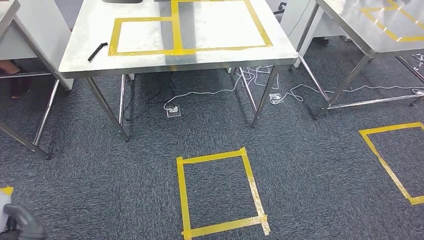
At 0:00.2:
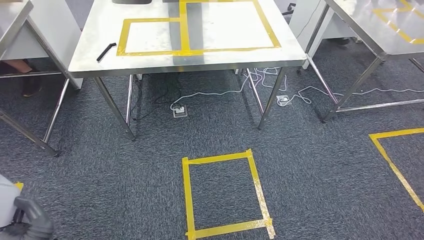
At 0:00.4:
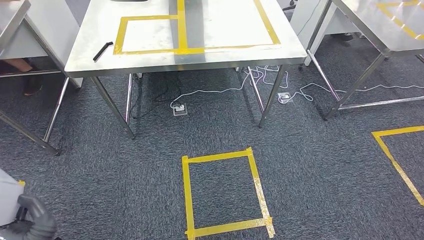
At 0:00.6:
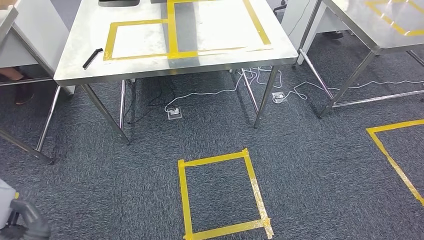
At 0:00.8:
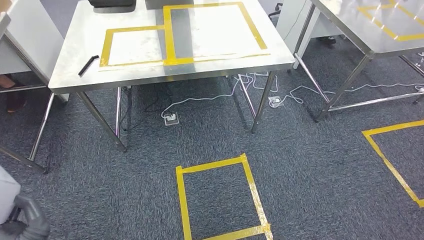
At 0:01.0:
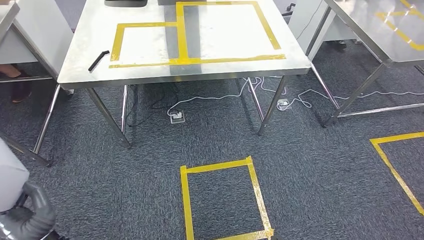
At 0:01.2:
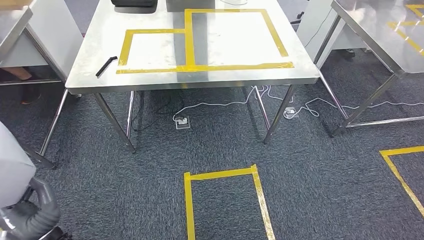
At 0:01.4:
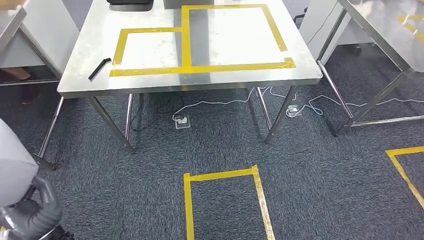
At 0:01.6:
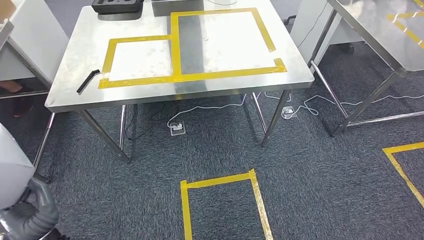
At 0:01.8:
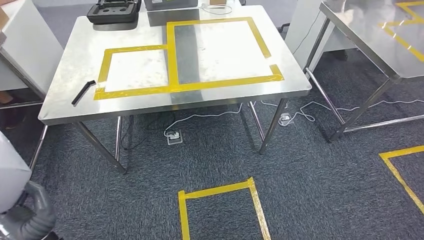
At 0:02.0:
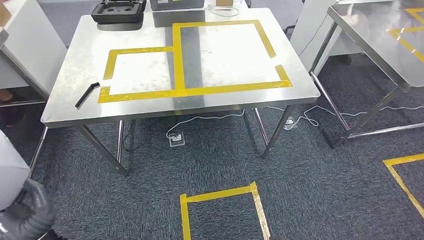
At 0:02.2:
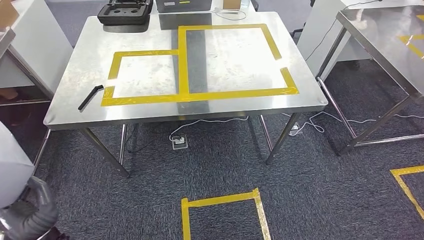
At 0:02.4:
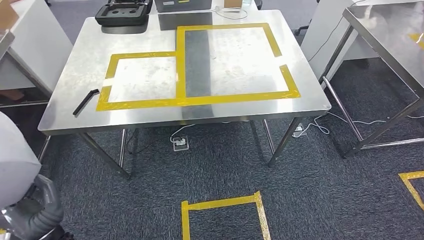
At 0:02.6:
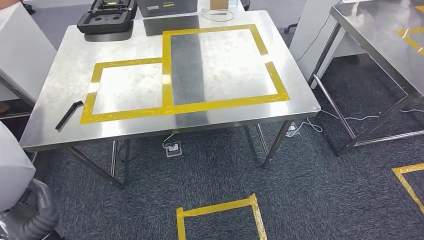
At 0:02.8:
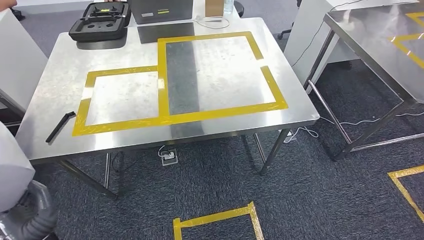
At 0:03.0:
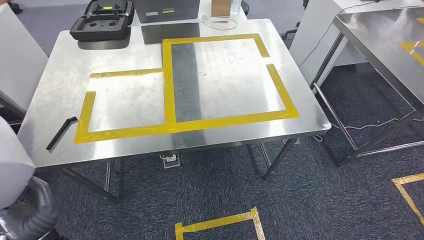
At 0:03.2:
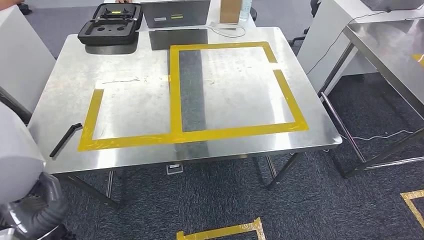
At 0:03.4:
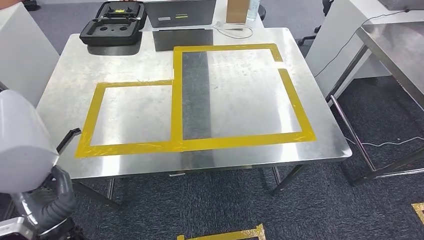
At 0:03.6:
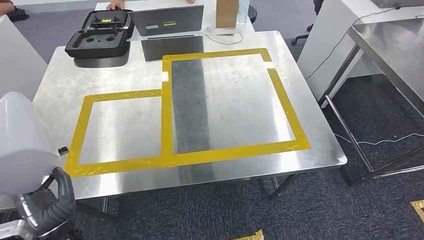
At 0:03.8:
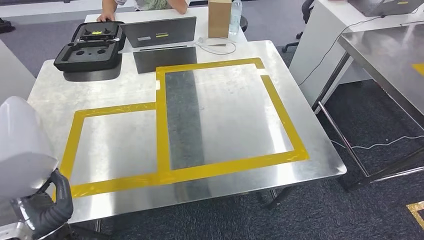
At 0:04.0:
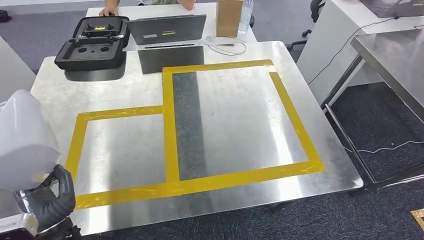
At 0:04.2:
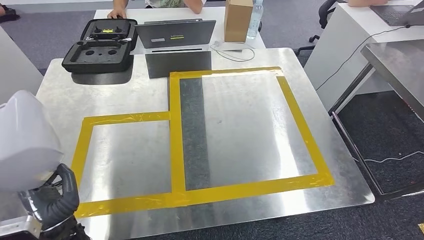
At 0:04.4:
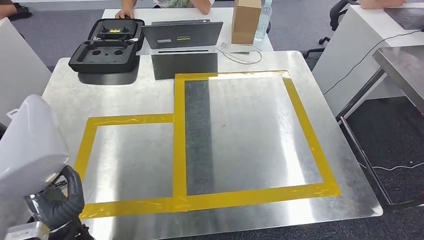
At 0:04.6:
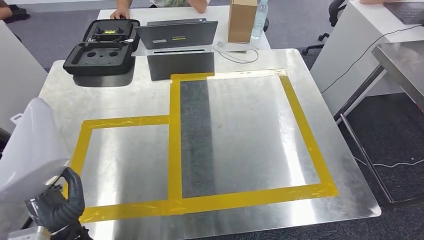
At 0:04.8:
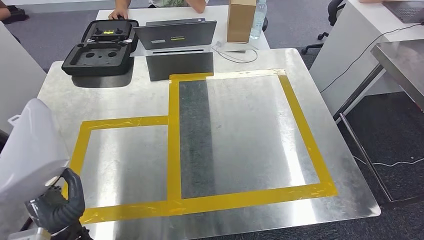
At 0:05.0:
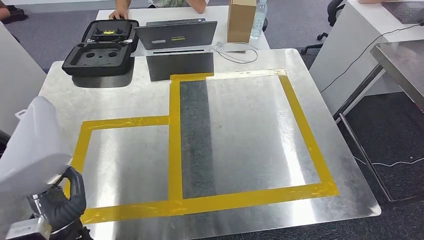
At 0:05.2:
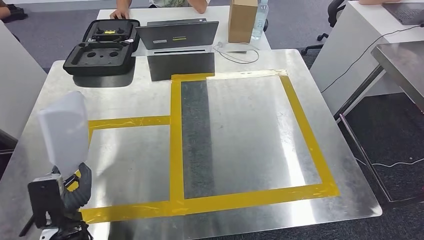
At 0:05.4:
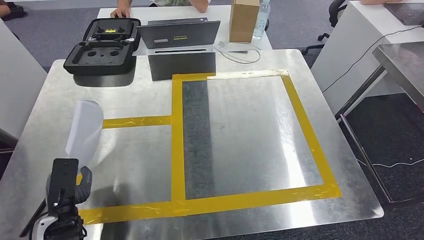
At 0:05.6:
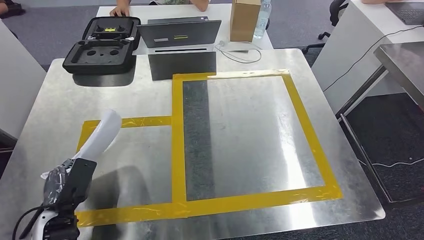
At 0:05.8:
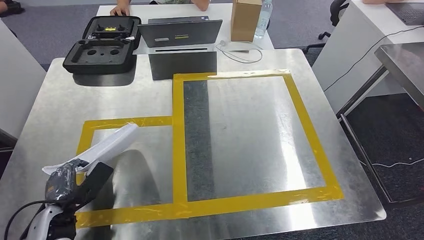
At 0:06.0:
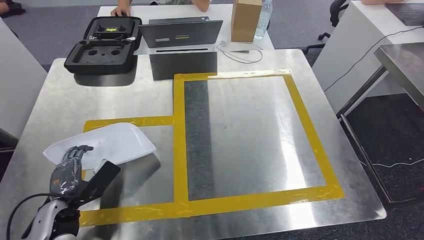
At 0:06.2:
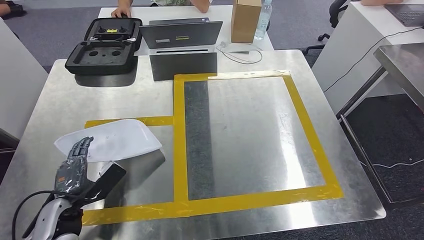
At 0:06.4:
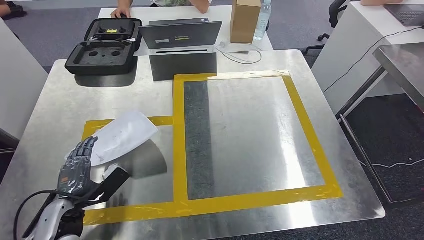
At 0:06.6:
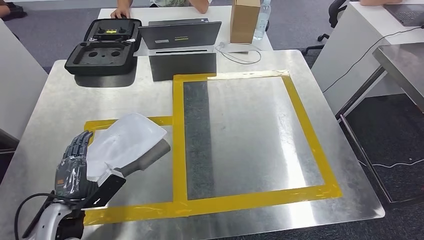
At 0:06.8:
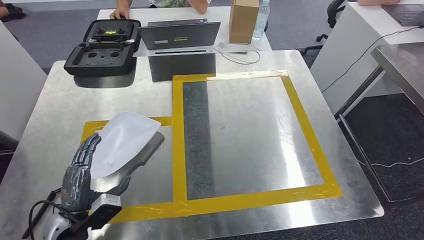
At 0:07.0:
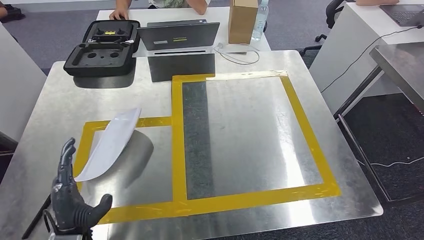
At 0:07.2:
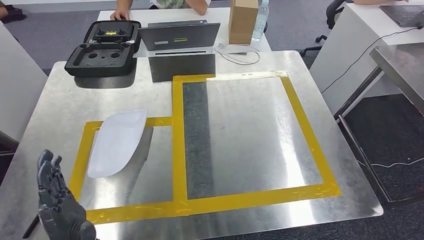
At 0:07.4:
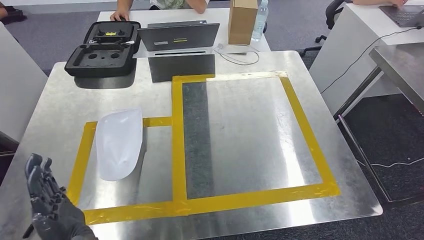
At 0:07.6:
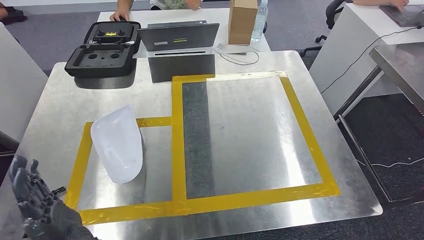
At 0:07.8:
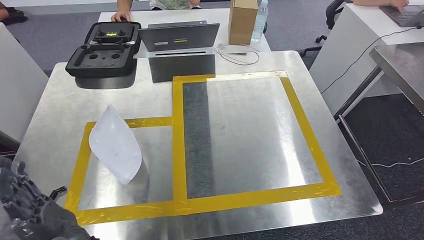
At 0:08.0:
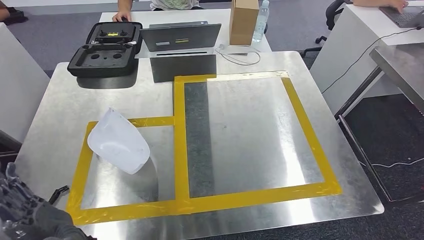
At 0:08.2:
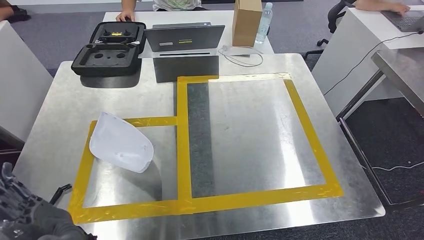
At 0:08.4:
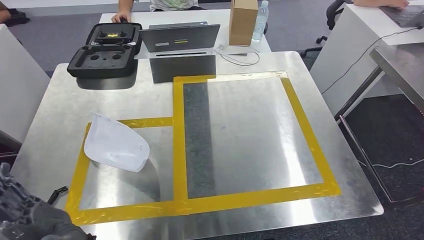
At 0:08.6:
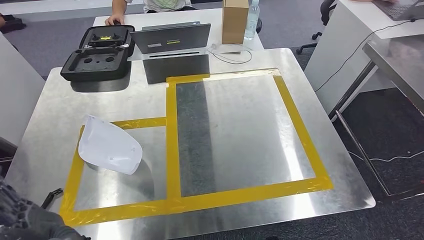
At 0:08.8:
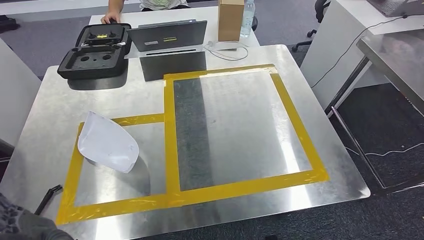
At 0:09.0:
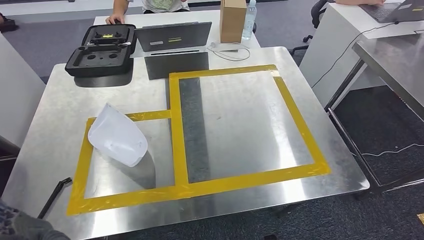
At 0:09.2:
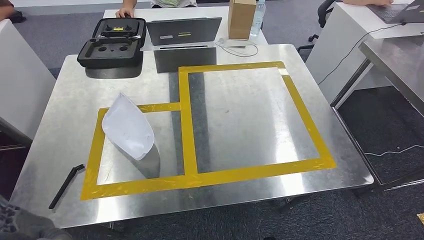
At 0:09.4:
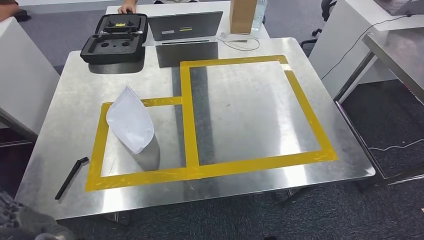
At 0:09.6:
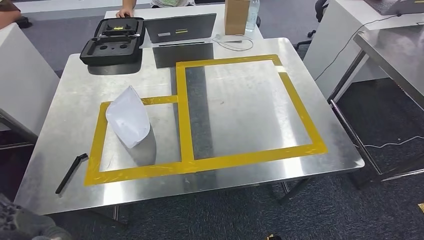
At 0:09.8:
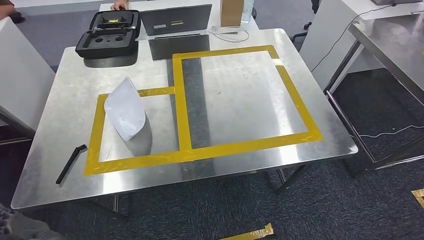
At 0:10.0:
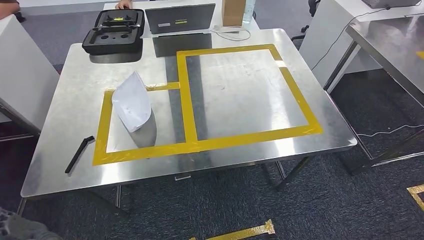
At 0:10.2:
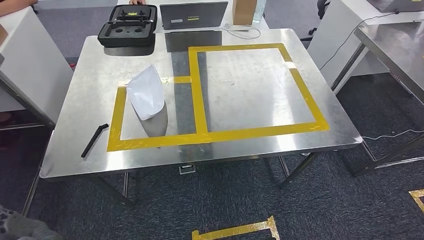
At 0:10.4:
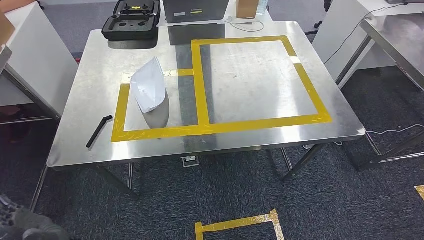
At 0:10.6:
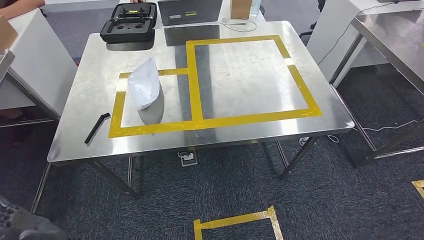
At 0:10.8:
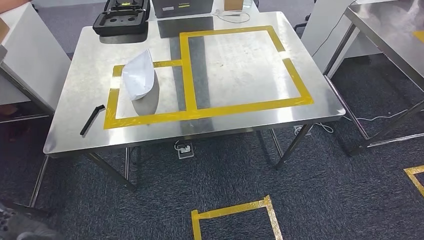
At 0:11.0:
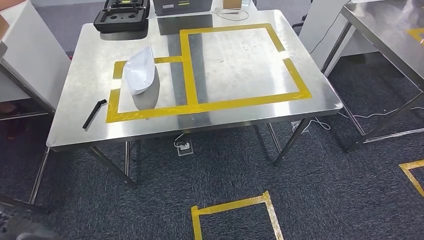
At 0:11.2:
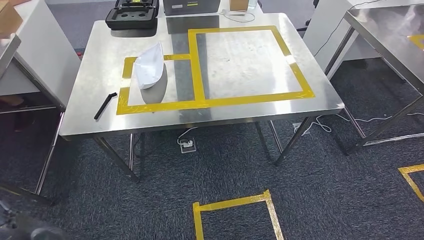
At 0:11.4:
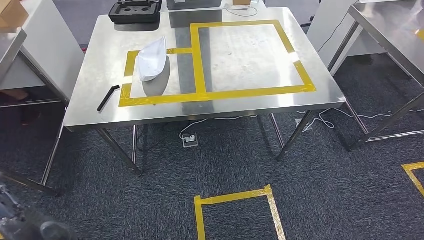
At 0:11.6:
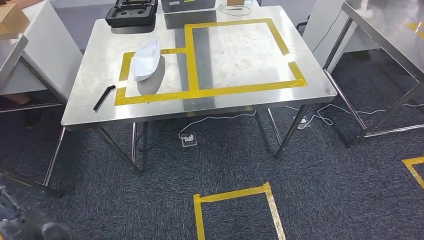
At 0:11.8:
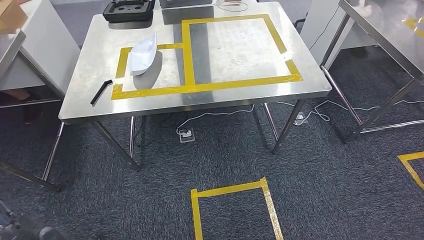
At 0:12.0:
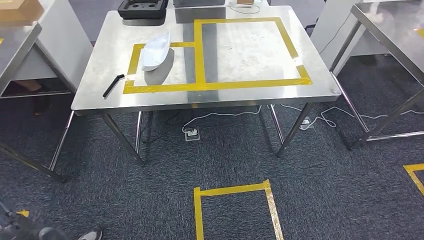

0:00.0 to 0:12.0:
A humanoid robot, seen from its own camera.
Step, 0:00.0 to 0:08.6: Insert the small component into the corresponding slot on the workbench.

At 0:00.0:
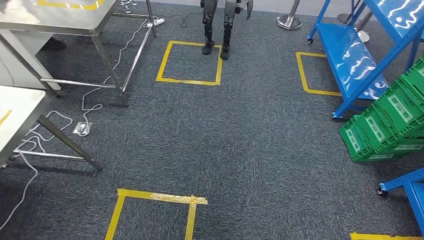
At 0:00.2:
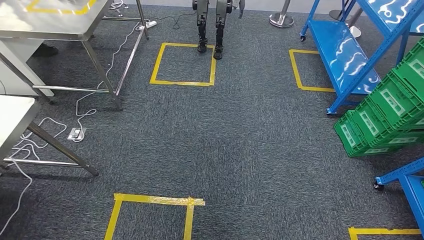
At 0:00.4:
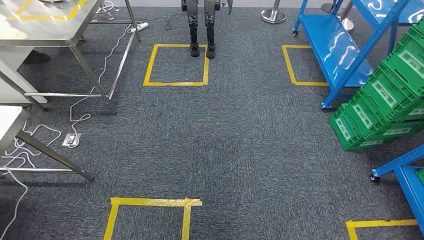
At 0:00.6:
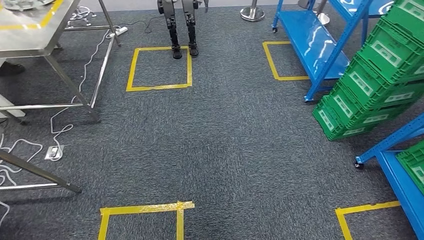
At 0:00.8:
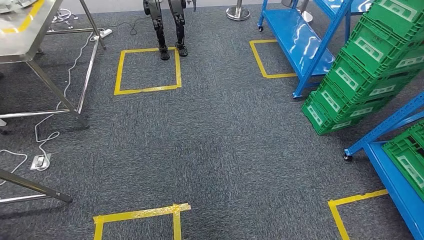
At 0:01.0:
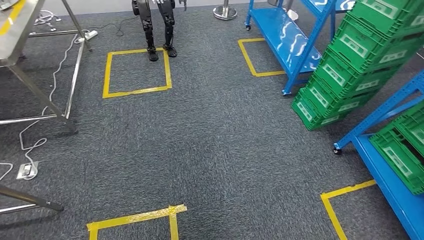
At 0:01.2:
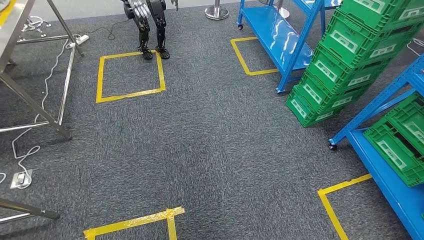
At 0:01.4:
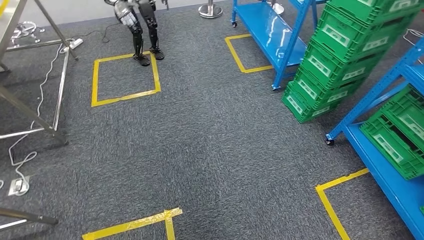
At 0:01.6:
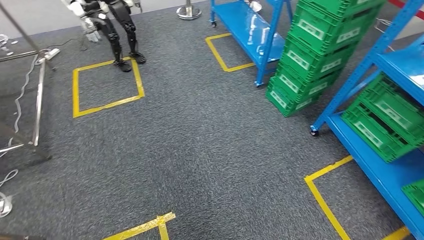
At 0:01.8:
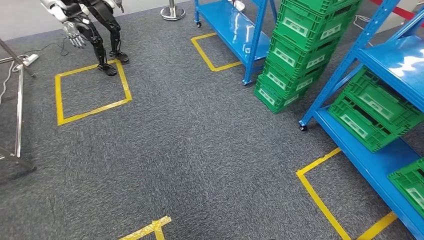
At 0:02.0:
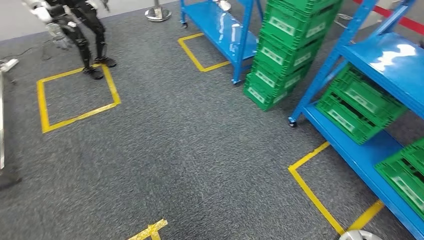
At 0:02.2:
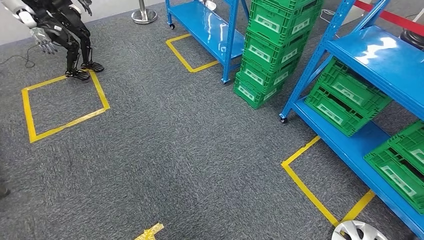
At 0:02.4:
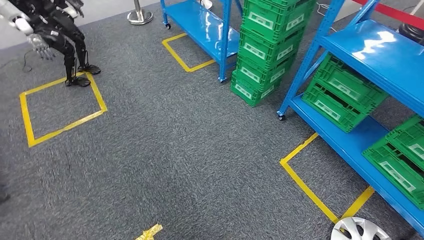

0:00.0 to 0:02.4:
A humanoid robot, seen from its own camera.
Step, 0:00.0 to 0:02.4: Return to the initial position at the workbench.

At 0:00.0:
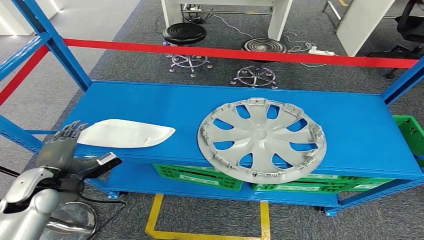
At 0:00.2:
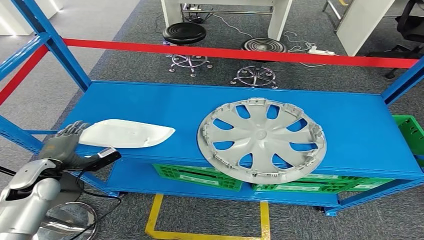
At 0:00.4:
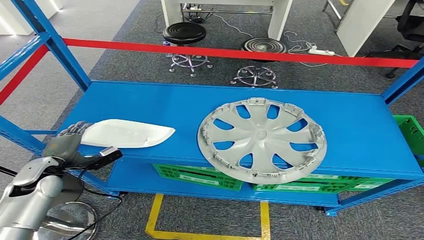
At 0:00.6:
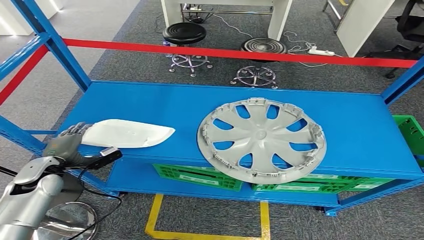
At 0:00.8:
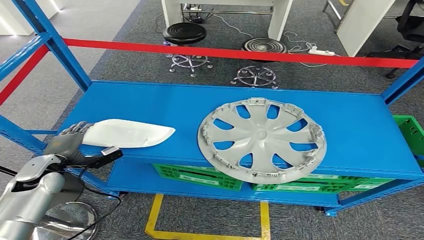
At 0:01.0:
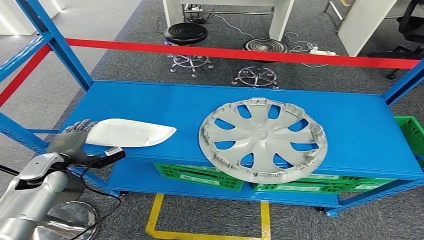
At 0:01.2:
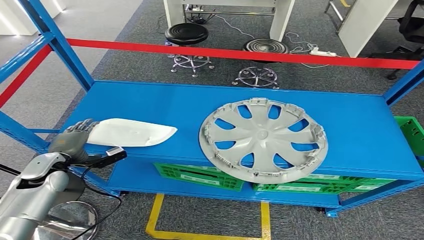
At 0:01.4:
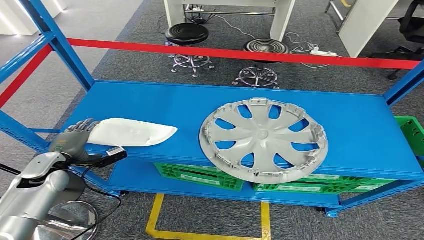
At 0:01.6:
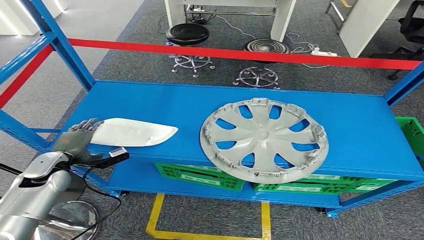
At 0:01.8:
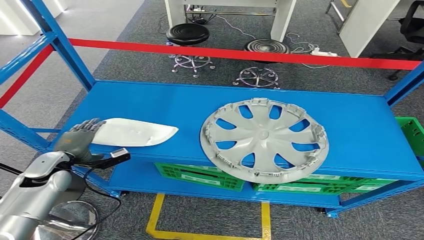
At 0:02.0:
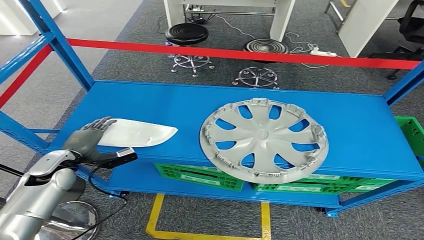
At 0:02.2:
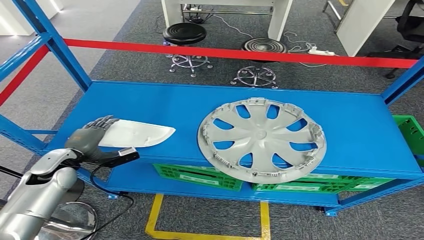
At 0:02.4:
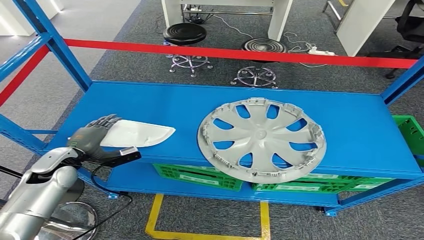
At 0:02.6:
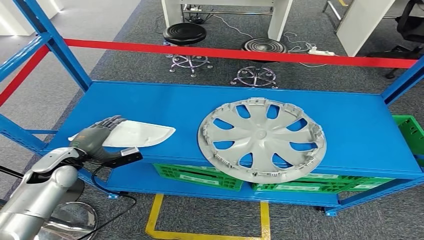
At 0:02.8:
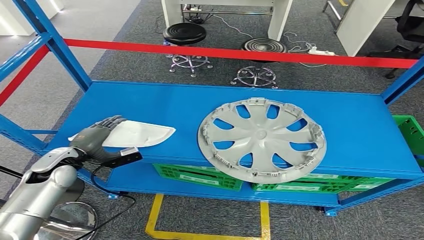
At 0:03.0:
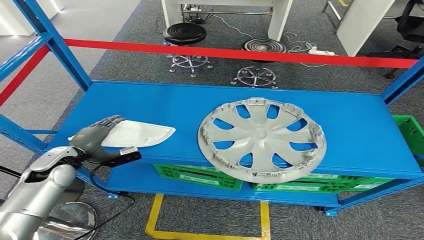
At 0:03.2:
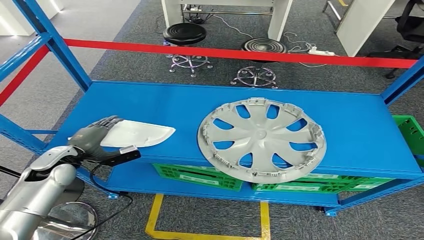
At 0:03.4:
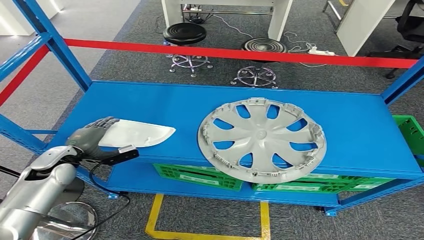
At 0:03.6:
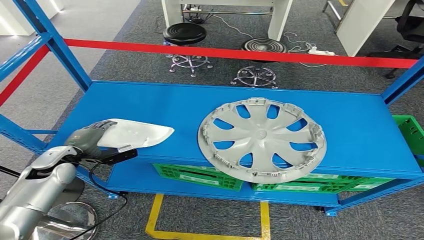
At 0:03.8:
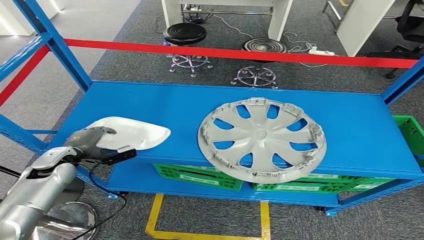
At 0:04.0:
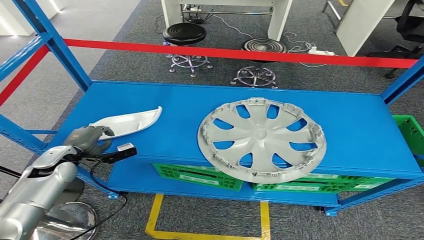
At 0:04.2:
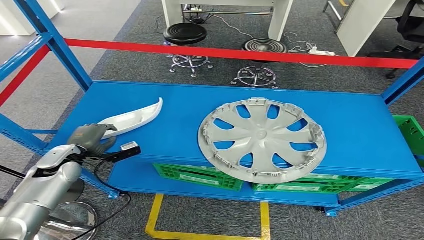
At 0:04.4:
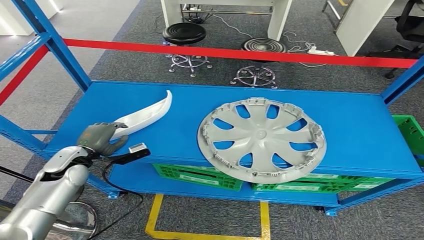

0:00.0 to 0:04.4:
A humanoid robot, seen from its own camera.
0:00.0 to 0:01.4: The left hand is displaced forward by roughly 5 cm.
0:01.4 to 0:04.4: The hands move only a little.
